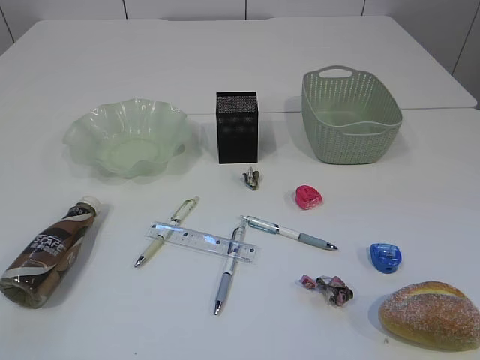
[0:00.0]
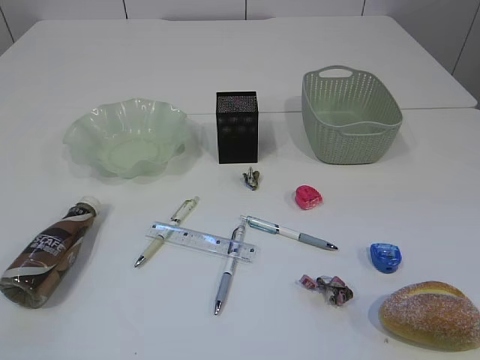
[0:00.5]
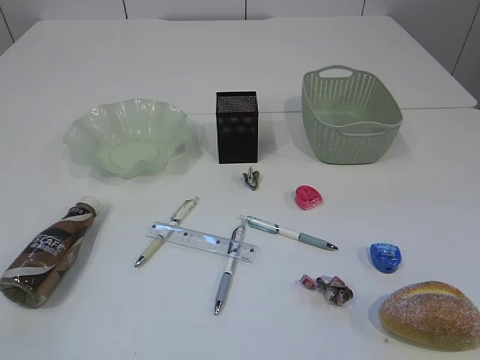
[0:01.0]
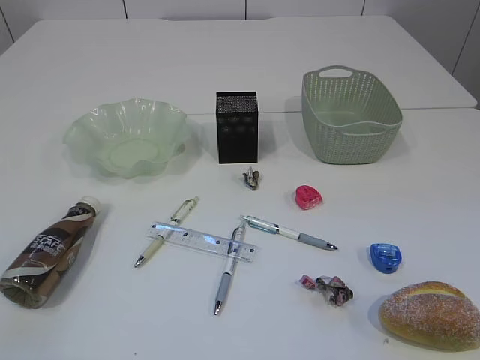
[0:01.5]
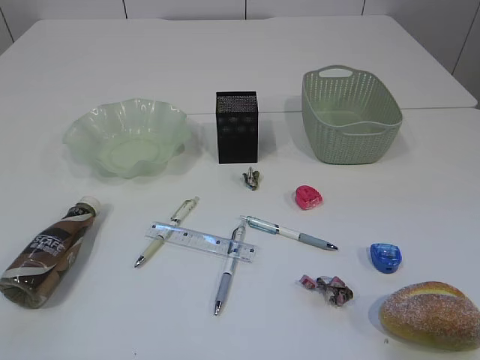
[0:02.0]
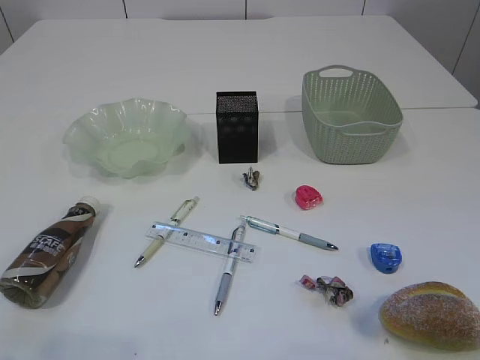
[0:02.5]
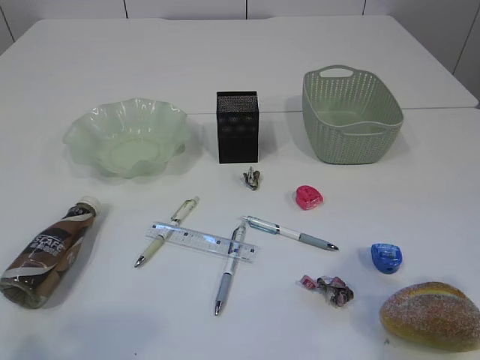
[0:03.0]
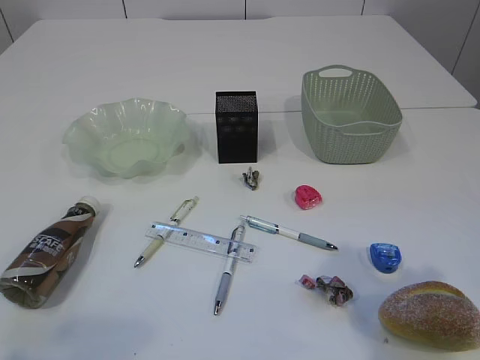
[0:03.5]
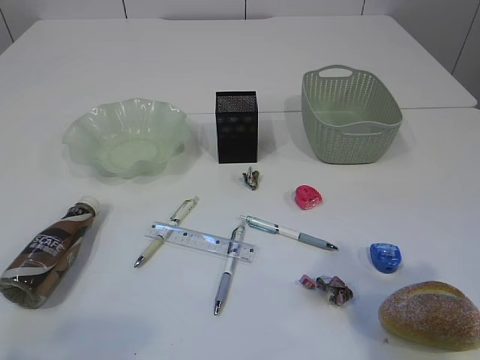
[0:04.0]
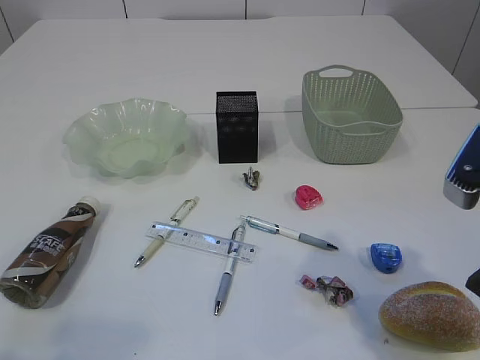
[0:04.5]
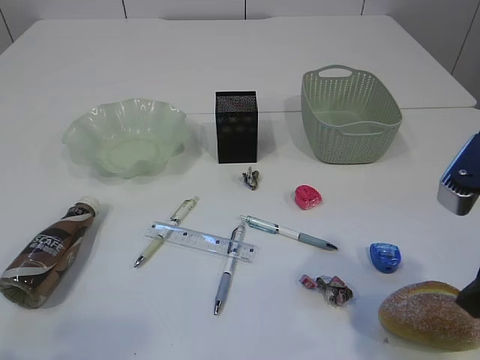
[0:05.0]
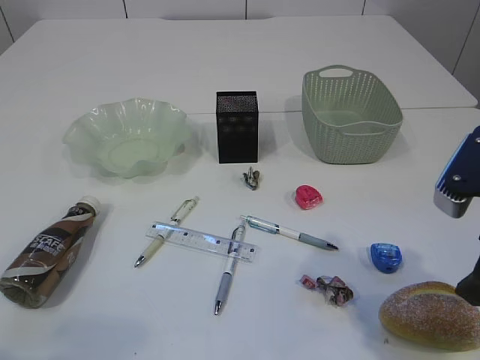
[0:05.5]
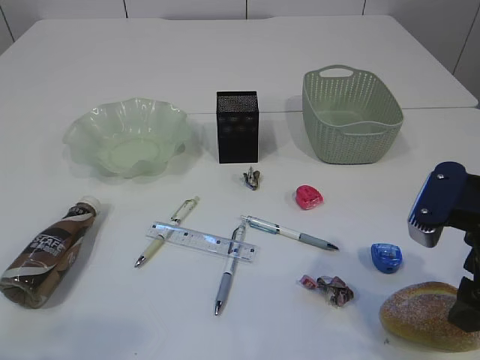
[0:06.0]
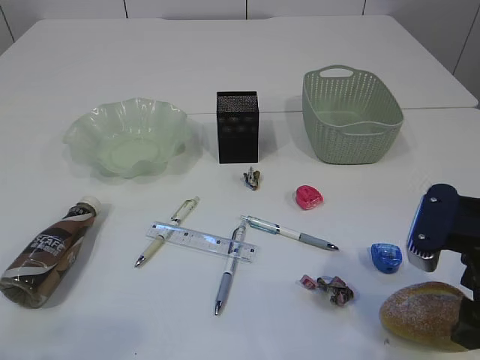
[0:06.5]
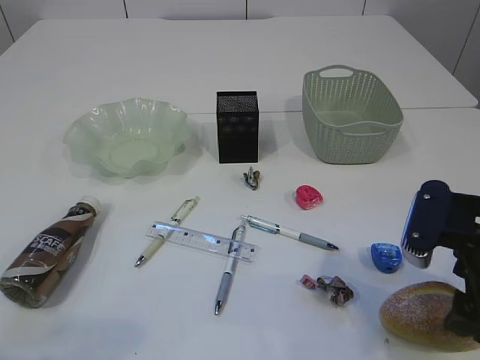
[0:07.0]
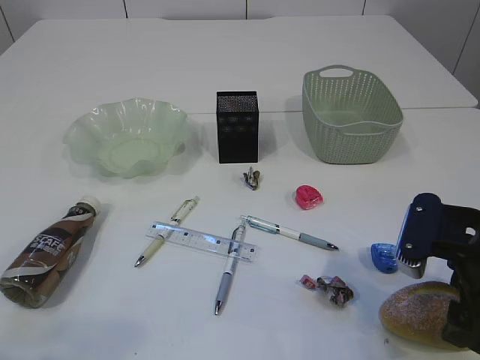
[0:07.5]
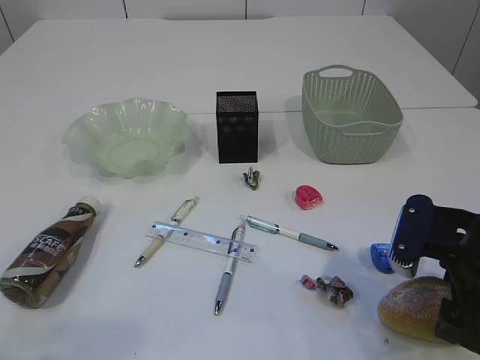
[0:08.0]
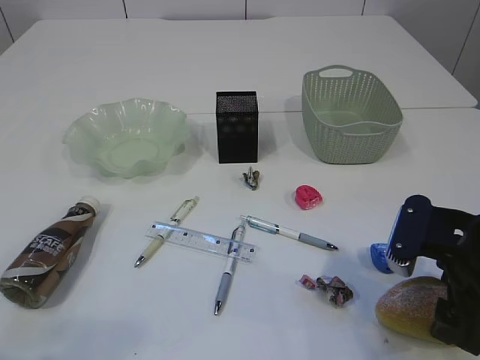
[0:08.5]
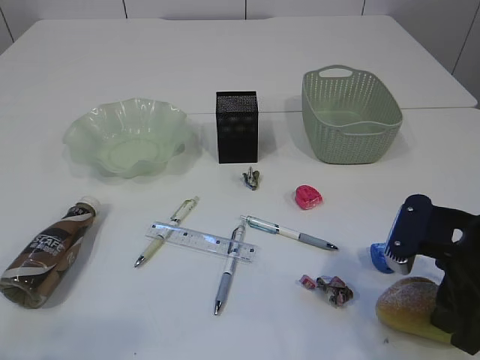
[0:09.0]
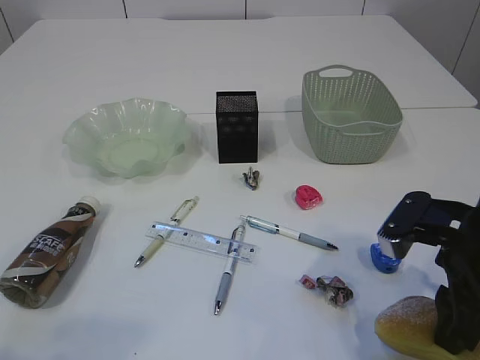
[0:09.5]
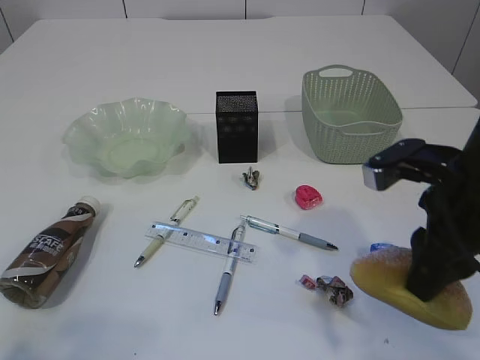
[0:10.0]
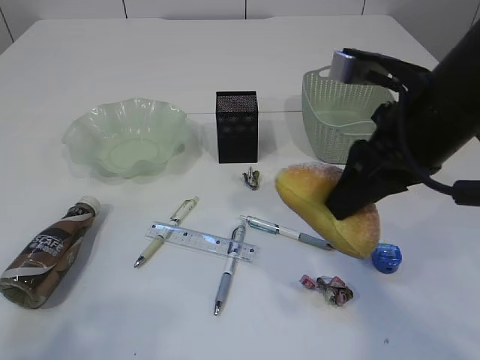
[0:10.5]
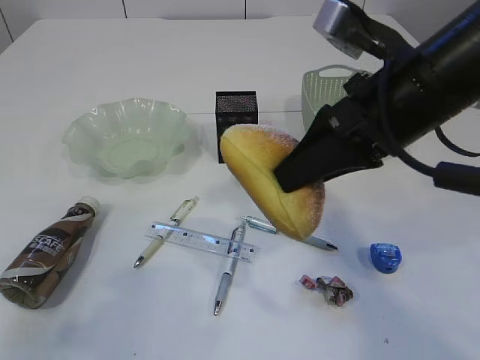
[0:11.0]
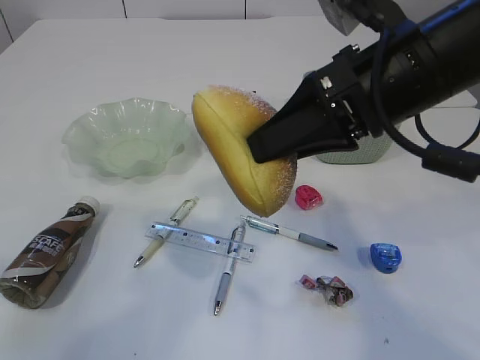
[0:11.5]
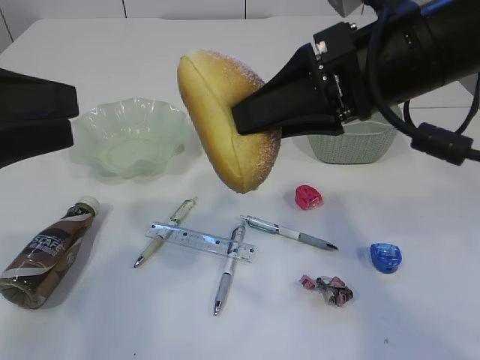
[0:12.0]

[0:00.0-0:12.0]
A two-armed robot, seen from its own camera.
0:02.0 to 0:04.0: The right gripper travels forward by approximately 15 cm.
0:04.0 to 0:06.0: The right gripper is displaced downward and forward by approximately 10 cm.
0:06.0 to 0:08.0: The right gripper changes place by approximately 5 cm.
0:08.0 to 0:10.0: The right gripper goes some 5 cm upward, and closes.
0:10.0 to 0:12.0: The left gripper is displaced forward and to the right by approximately 20 cm. The right gripper heads upward and to the left, covering some 15 cm.

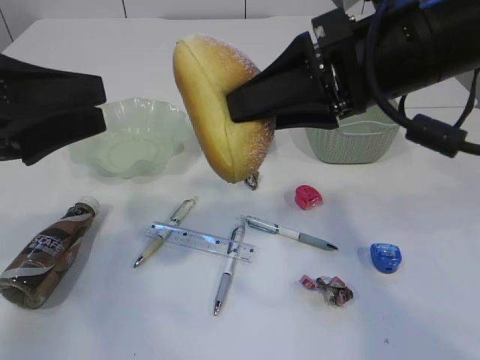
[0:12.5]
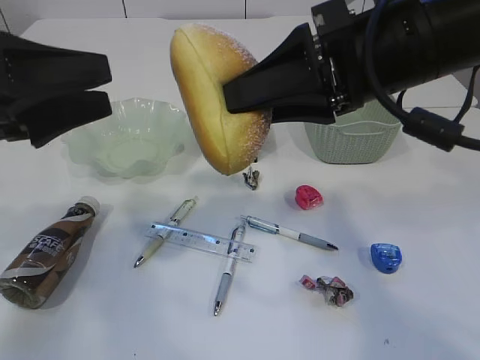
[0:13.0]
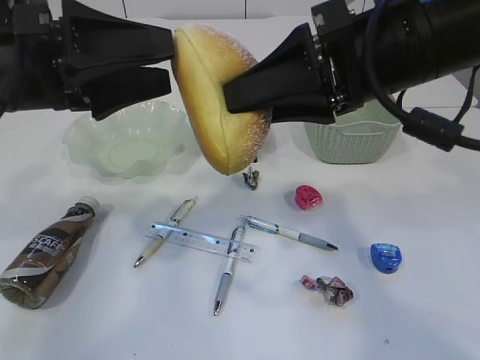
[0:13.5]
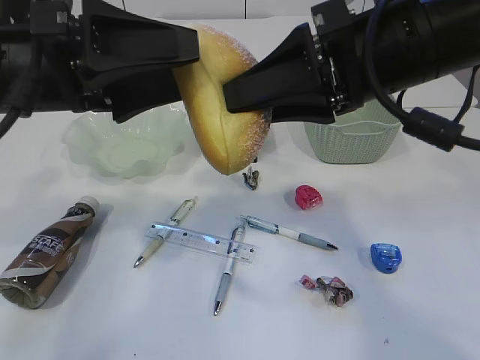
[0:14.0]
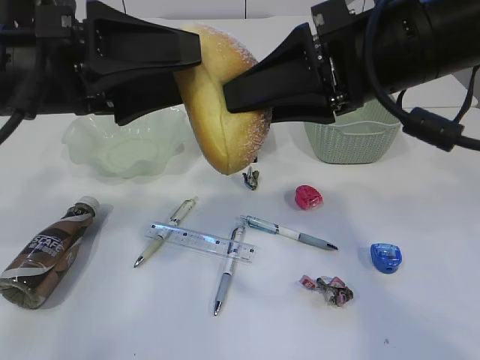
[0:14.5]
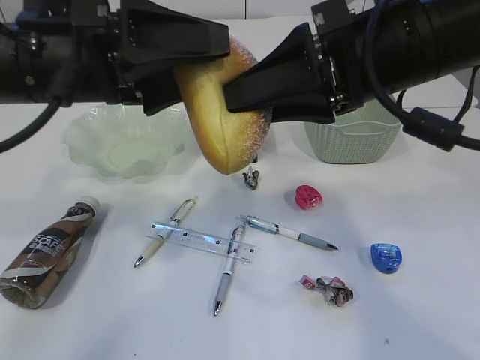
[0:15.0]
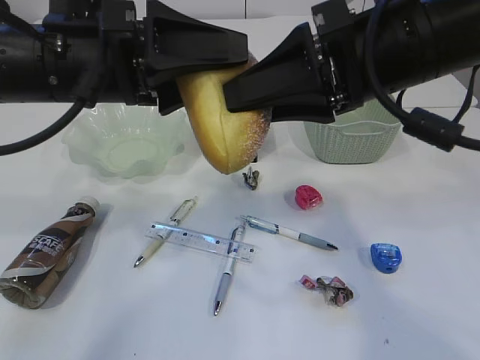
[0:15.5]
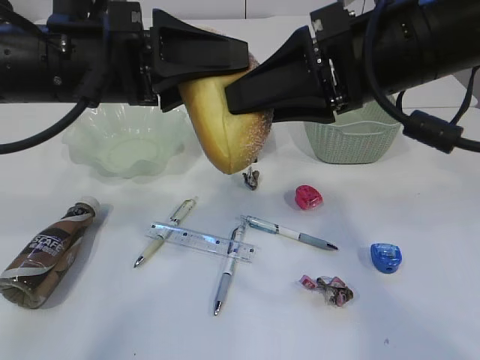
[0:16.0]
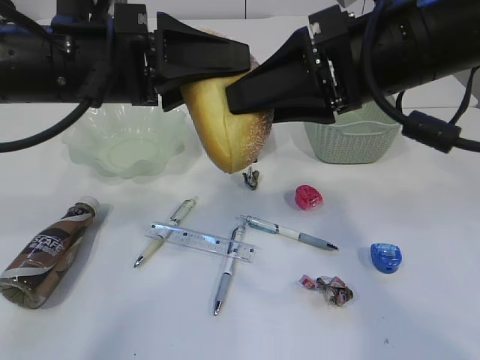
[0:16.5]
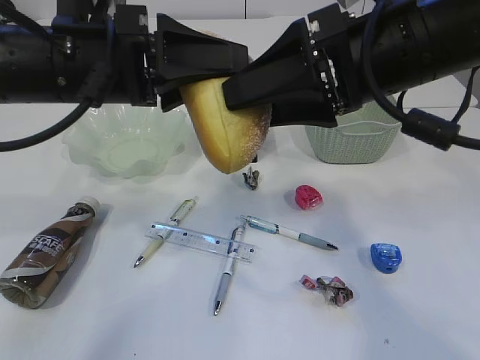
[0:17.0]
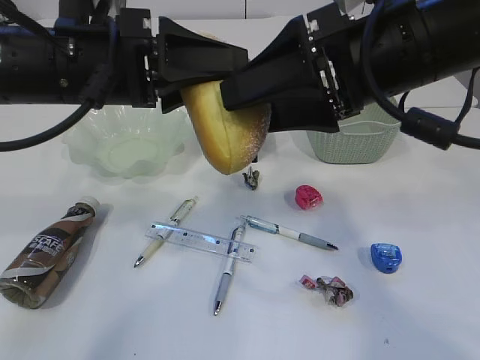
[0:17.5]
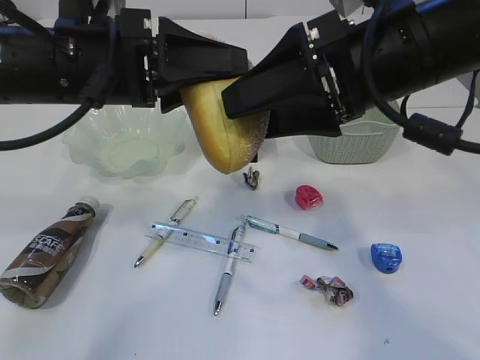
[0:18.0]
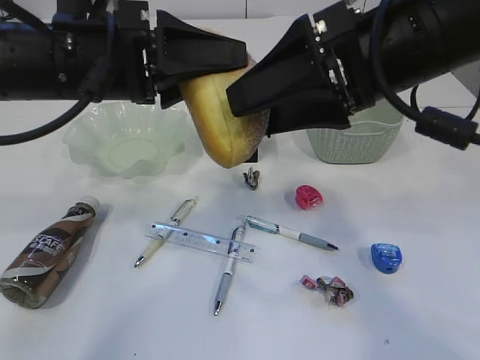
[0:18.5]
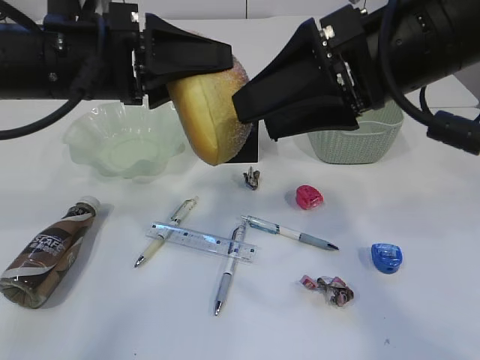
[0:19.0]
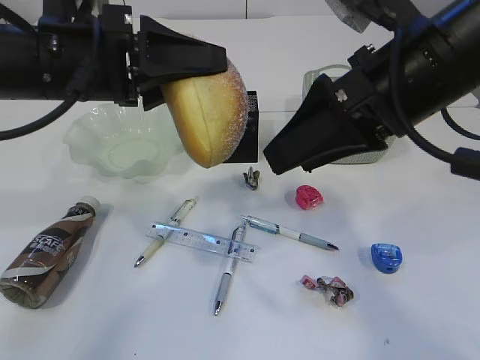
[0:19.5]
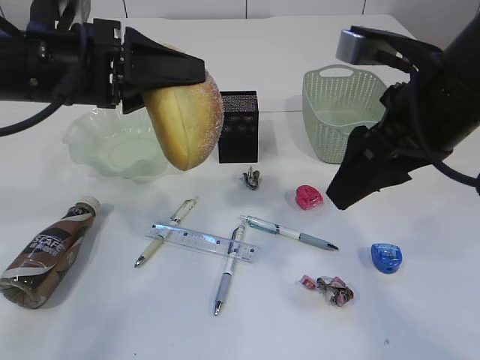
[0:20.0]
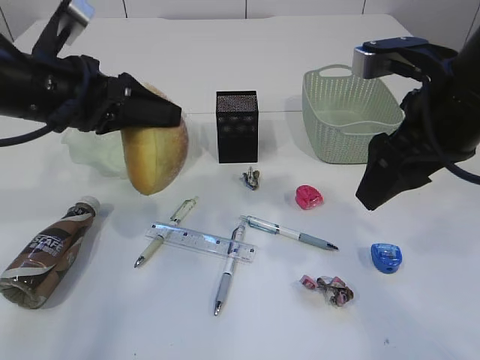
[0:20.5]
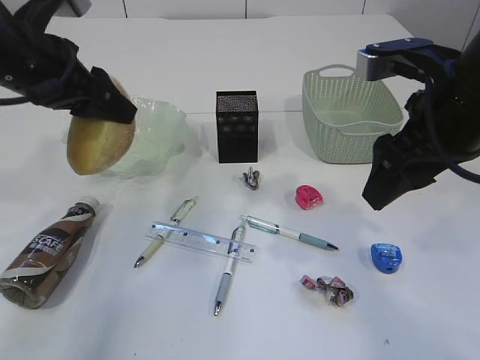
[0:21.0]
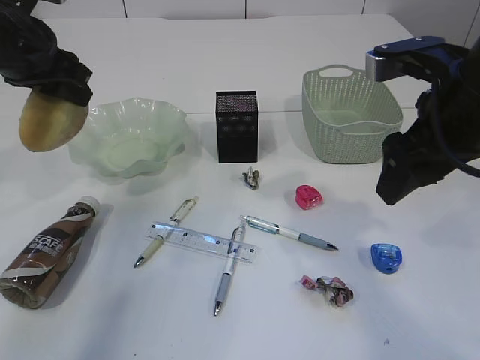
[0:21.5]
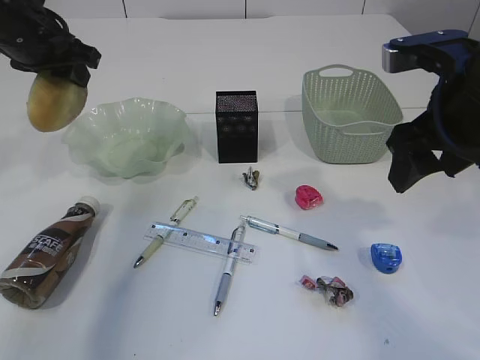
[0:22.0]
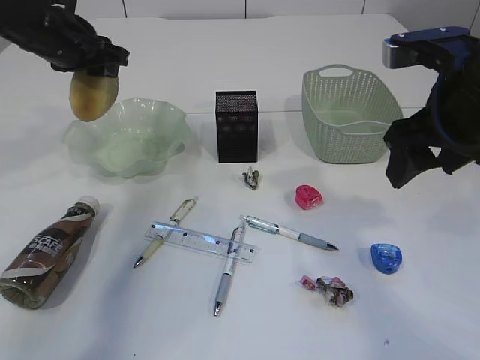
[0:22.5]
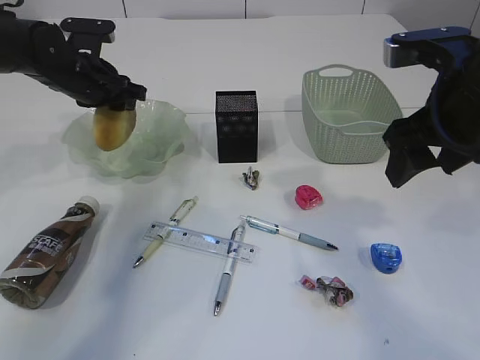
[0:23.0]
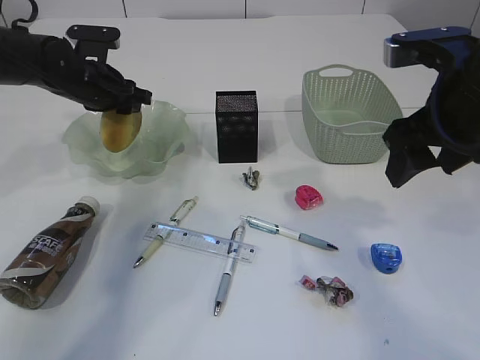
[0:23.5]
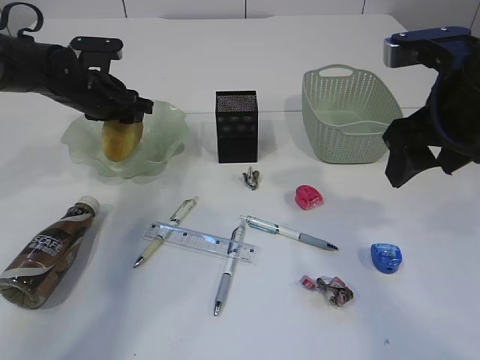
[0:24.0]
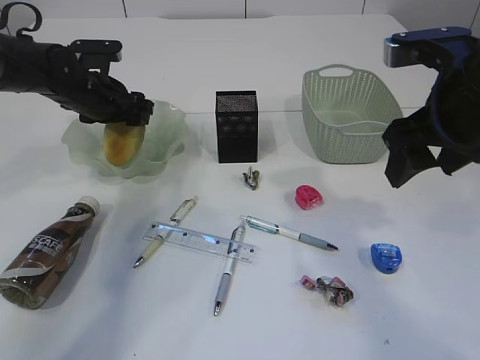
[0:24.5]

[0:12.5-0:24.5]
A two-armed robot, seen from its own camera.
Step, 0:12.5 to 0:19.5: Hand over the bread.
0:12.5 to 0:14.5: The left gripper heads to the right, covering some 5 cm.
0:14.5 to 0:16.5: The left gripper closes its fingers.
0:16.5 to 0:18.5: The right gripper opens.
0:18.5 to 0:20.5: The left gripper travels to the left by approximately 5 cm. The right gripper goes approximately 5 cm to the right.
0:20.5 to 0:22.5: The left gripper travels forward by roughly 15 cm.
0:22.5 to 0:24.5: The left gripper is displaced downward by about 10 cm, and opens its fingers.

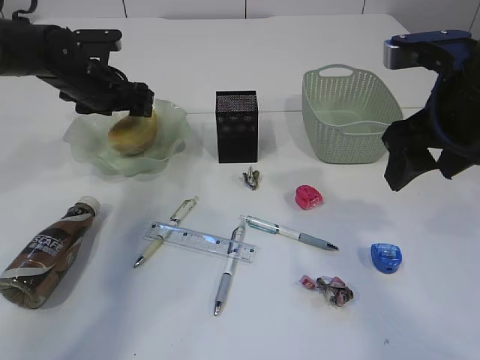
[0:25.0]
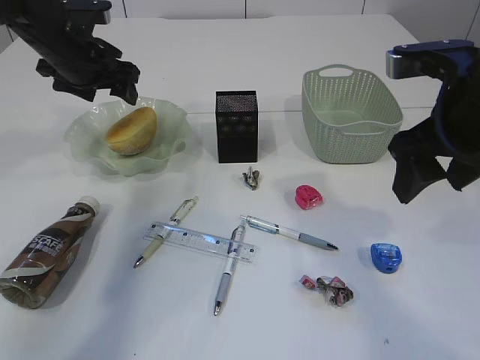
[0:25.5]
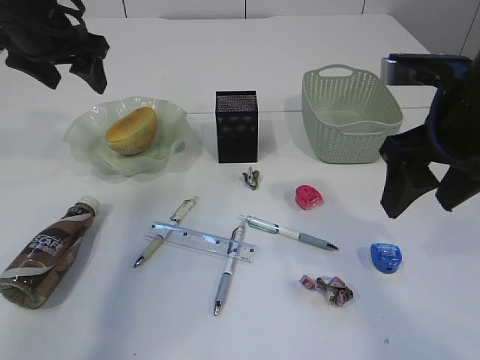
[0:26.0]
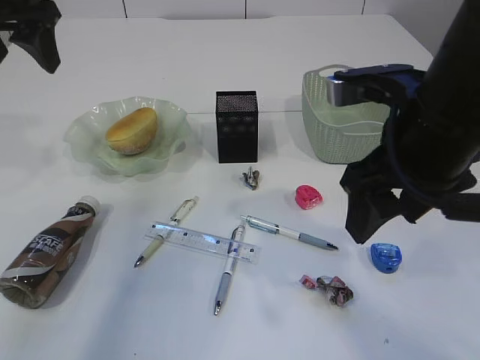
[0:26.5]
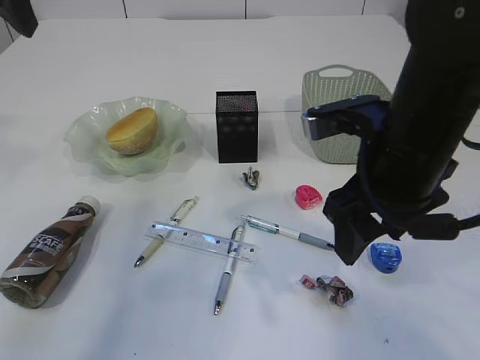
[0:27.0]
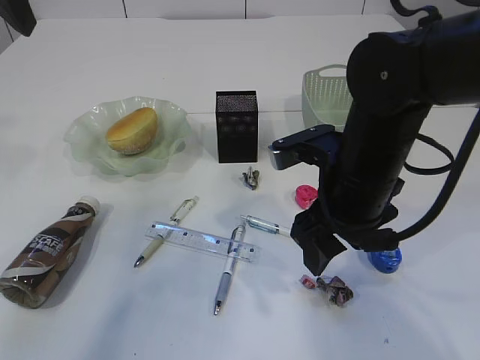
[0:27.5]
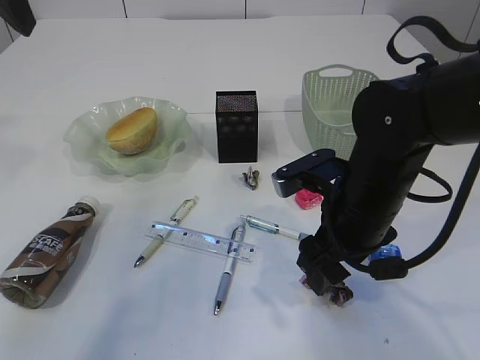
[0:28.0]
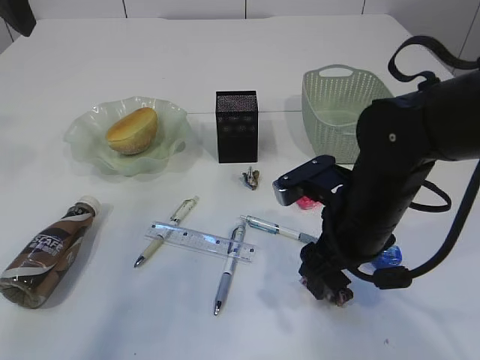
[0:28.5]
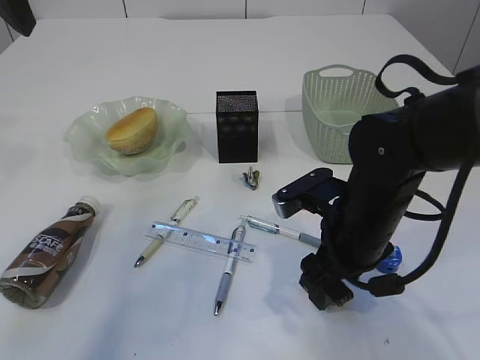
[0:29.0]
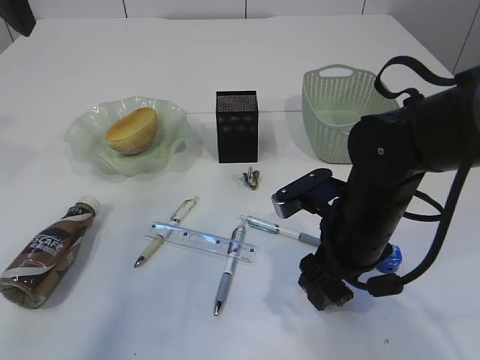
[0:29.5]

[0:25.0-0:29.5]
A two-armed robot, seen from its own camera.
0:25.0 to 0:27.0: The right gripper is displaced to the left by roughly 5 cm; the left gripper moves upward and backward, approximately 25 cm.
0:27.0 to 0:29.5: The right gripper travels downward by about 10 cm.
